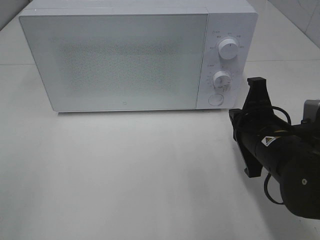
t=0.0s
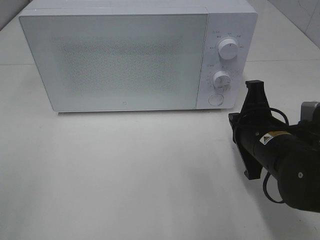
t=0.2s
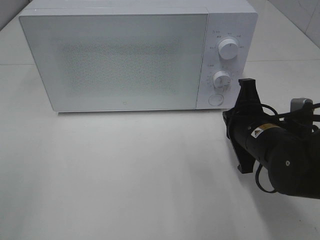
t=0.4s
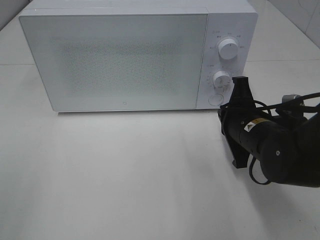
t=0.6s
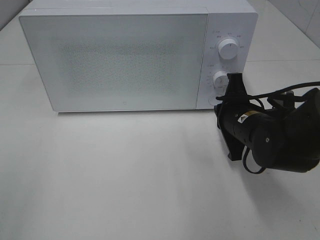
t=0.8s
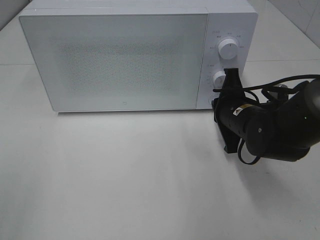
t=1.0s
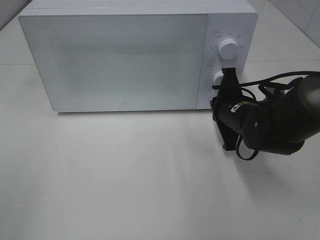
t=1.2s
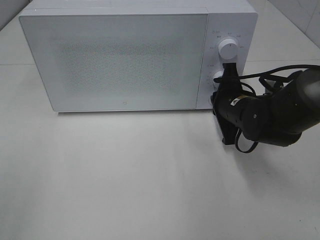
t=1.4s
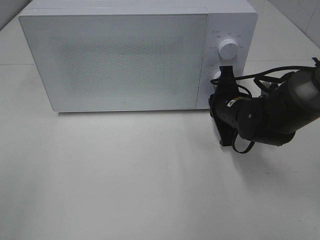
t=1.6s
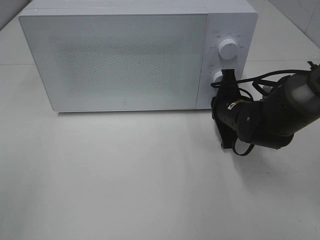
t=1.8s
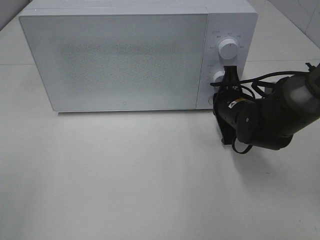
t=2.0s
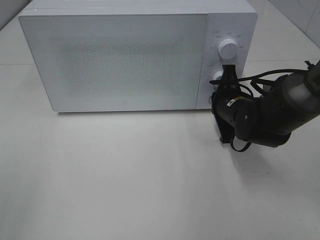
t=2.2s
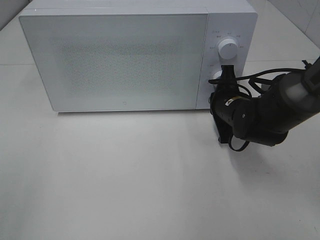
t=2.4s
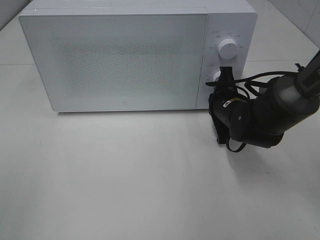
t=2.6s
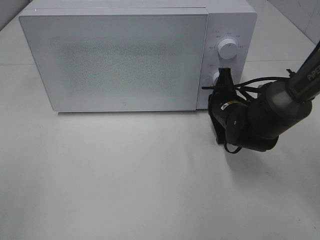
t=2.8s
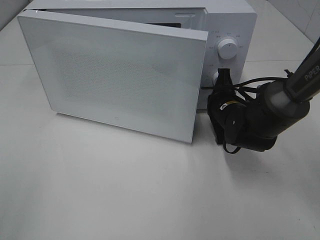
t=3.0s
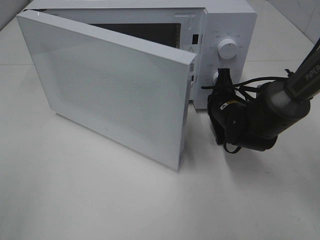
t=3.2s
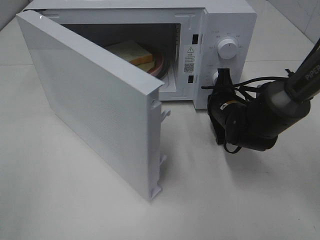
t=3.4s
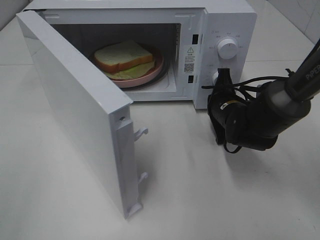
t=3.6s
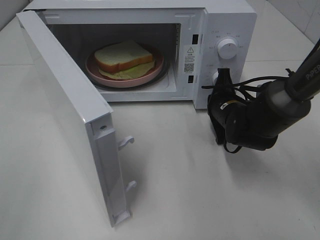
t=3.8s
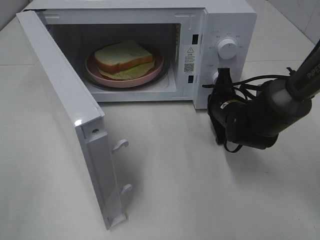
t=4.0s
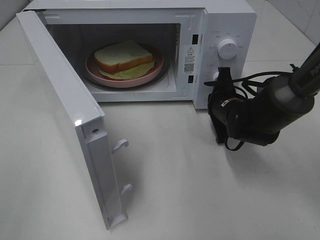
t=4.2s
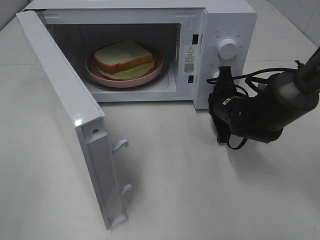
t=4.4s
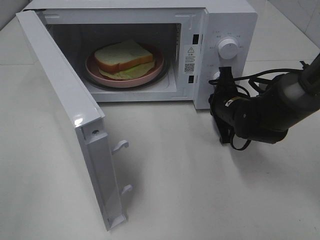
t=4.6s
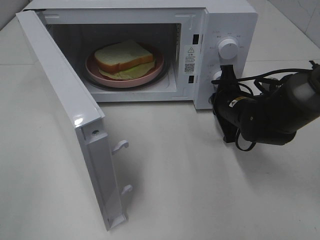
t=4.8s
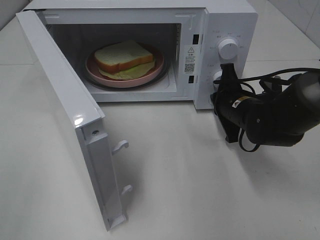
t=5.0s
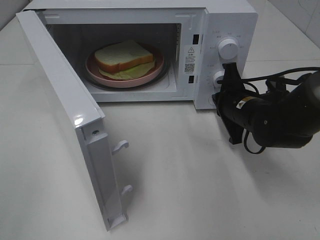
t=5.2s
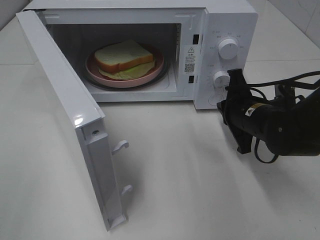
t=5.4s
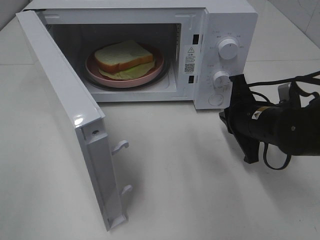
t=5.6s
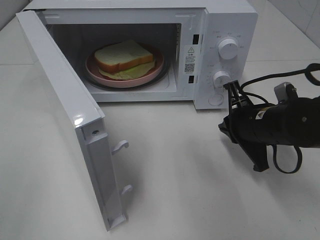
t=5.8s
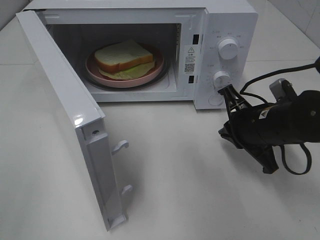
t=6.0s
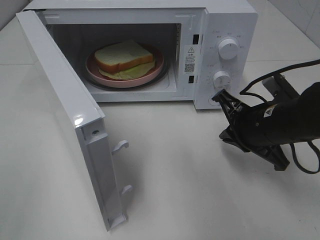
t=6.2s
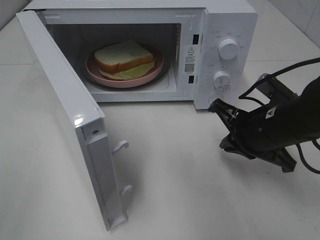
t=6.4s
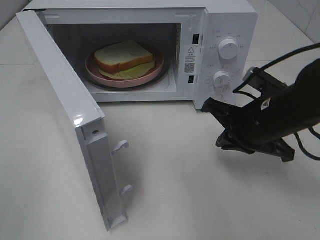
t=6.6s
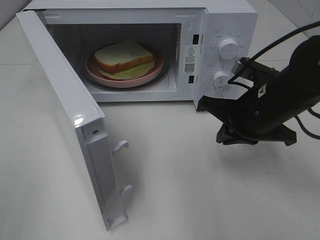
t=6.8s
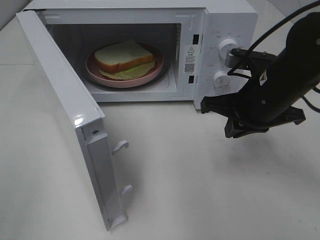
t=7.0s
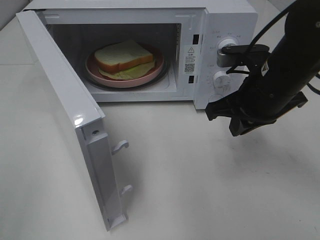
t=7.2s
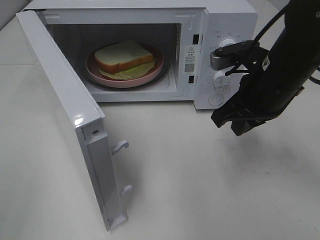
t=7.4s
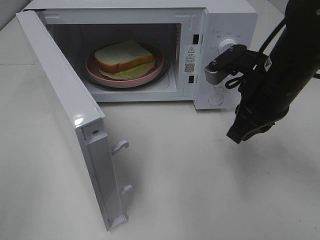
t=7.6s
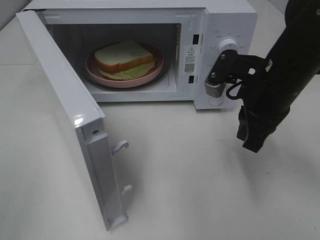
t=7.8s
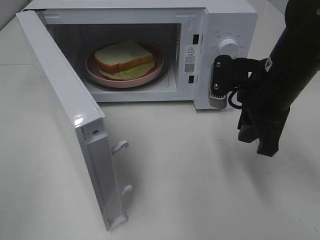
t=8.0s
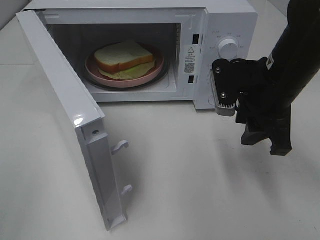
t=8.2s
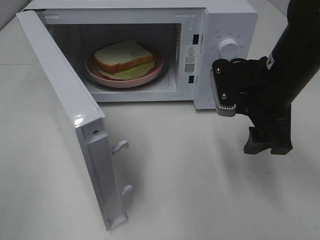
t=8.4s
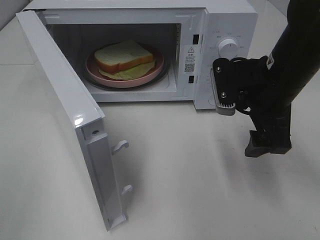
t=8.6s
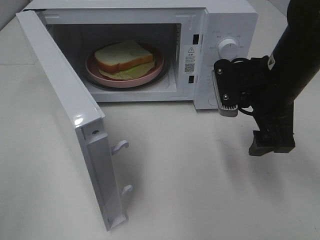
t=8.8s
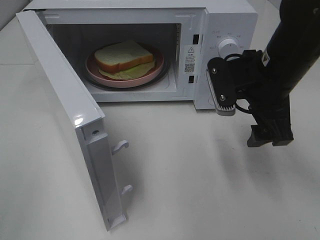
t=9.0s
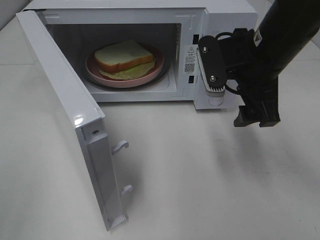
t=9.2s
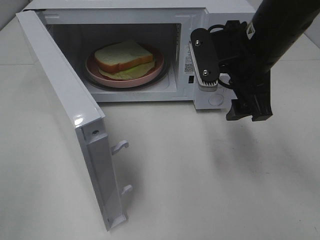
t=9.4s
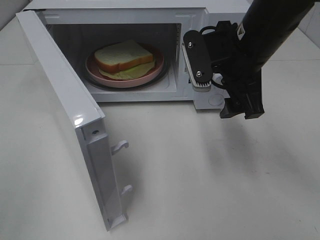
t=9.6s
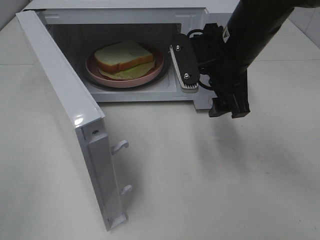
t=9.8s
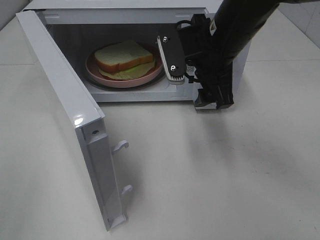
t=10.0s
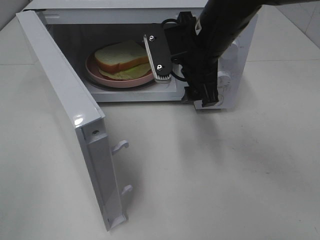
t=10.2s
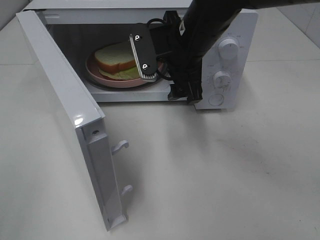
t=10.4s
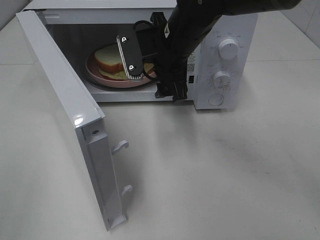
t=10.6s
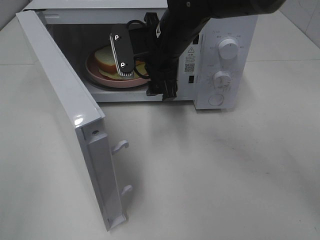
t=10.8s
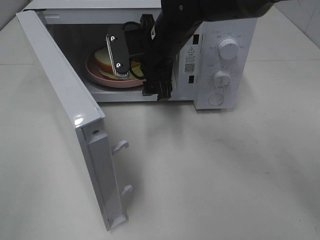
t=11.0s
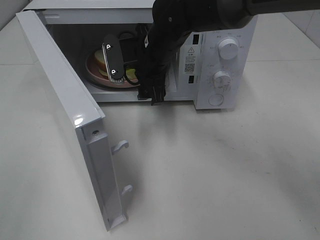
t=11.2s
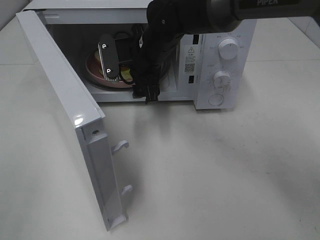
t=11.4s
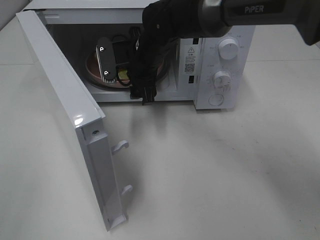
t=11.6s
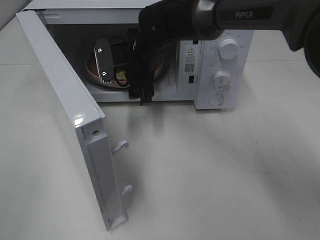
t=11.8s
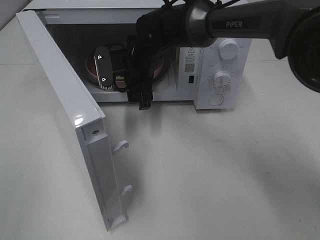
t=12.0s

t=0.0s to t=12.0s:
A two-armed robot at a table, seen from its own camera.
Task of the whole recording: Heat Sandwich.
Step, t=0.0s to t=5.4s: Right hand: press the switch.
t=0.0s to t=1.6s: The right gripper travels forward by roughly 10 cm.
t=1.6s to t=3.0s: There are only small adjustments of the grippers.
t=4.4s to t=6.0s: The right gripper shifts roughly 10 cm backward.
t=6.0s to t=7.6s: The right gripper is displaced upward by roughly 10 cm.
t=7.6s to t=9.0s: The right gripper opens up.
t=9.0s to t=10.4s: The right gripper heads to the left and forward, covering about 15 cm.
t=10.4s to t=12.0s: The right gripper moves downward, forward and to the left, approximately 15 cm.

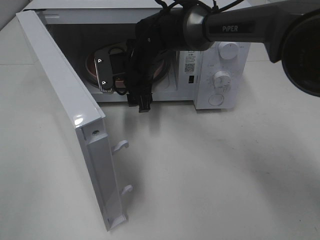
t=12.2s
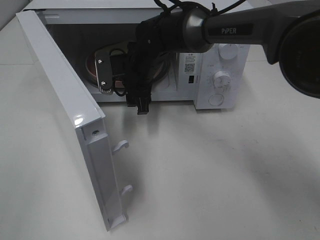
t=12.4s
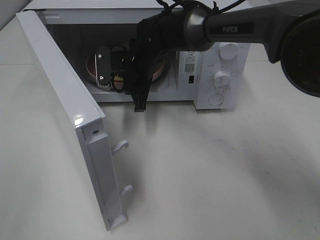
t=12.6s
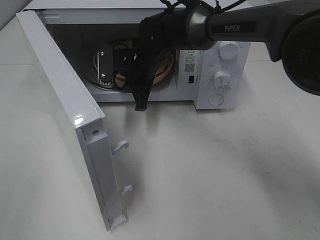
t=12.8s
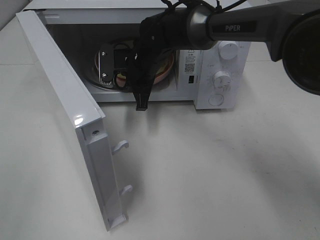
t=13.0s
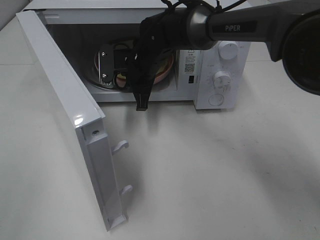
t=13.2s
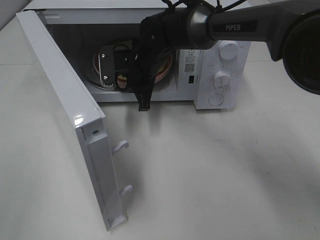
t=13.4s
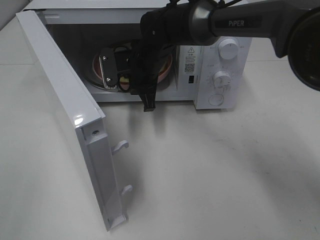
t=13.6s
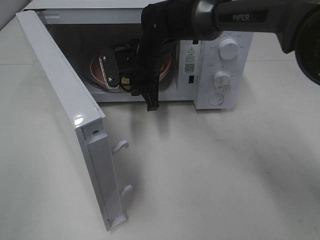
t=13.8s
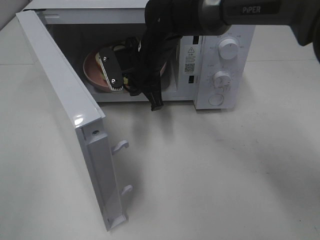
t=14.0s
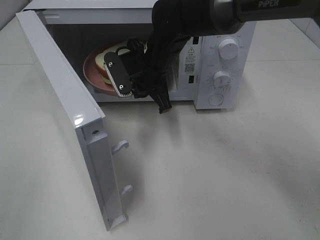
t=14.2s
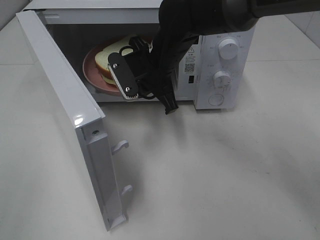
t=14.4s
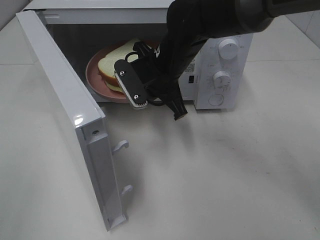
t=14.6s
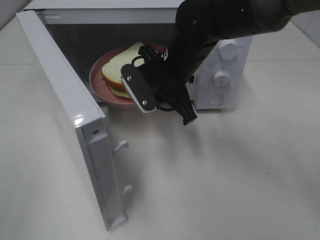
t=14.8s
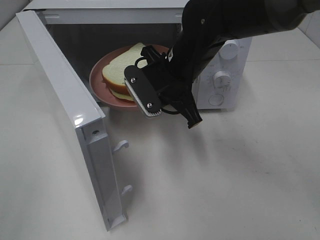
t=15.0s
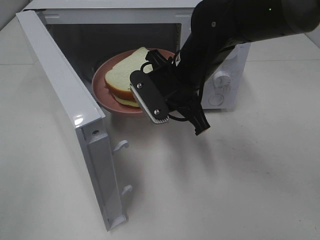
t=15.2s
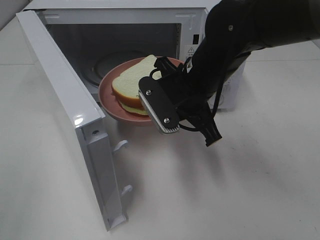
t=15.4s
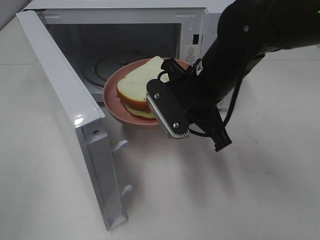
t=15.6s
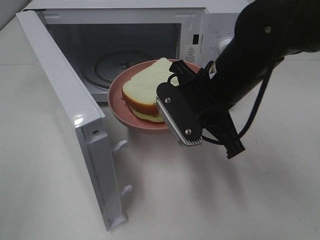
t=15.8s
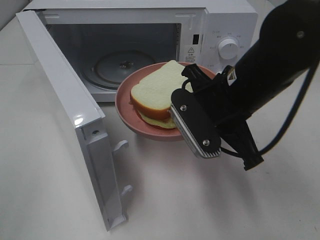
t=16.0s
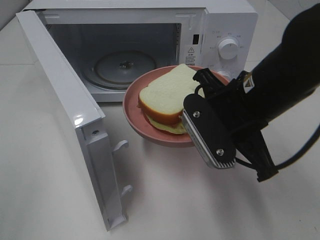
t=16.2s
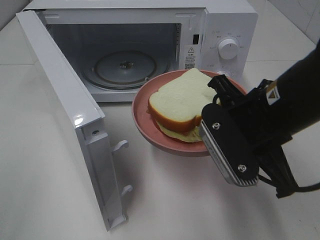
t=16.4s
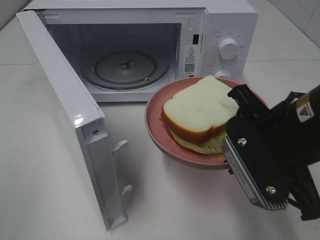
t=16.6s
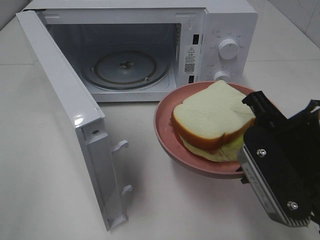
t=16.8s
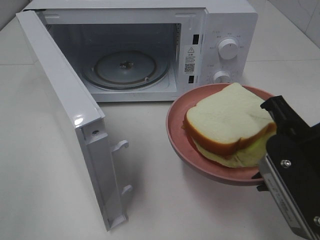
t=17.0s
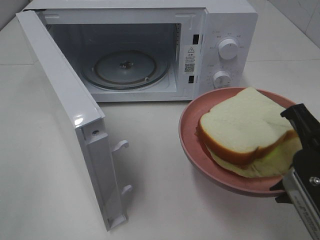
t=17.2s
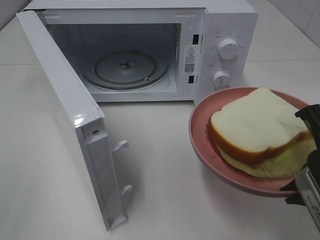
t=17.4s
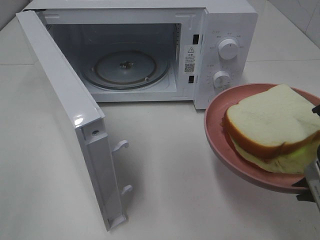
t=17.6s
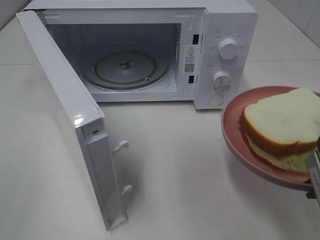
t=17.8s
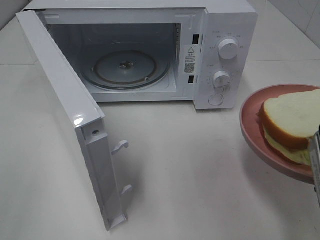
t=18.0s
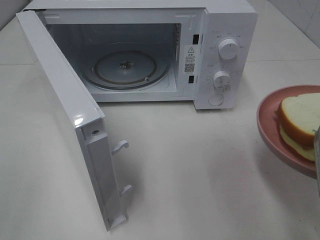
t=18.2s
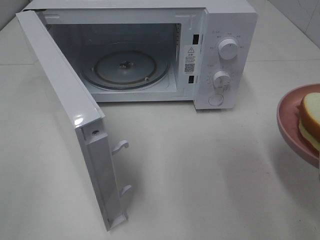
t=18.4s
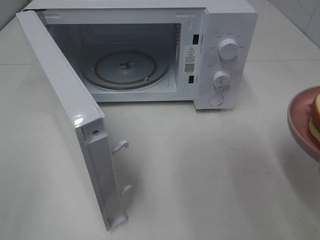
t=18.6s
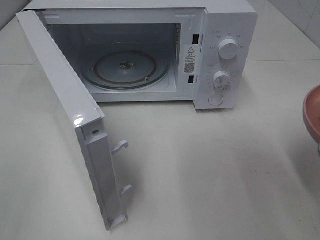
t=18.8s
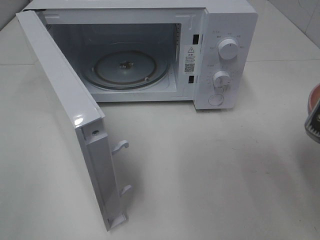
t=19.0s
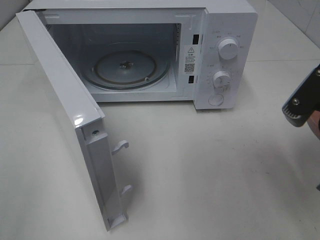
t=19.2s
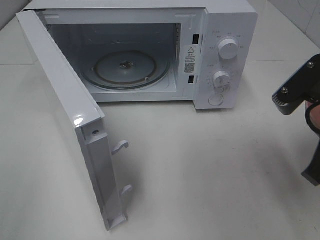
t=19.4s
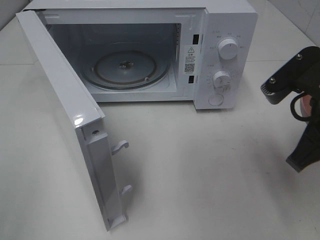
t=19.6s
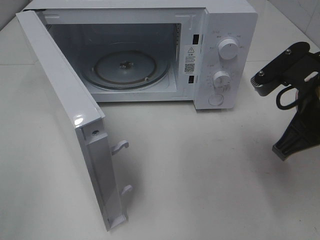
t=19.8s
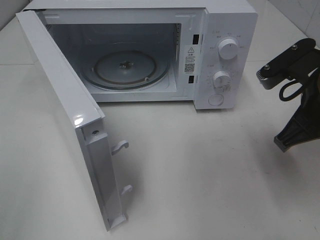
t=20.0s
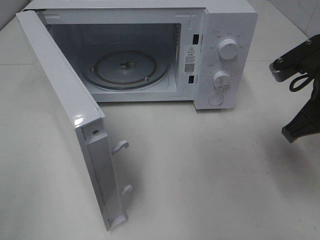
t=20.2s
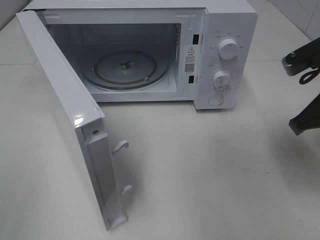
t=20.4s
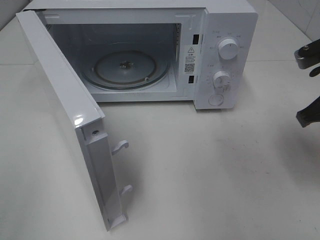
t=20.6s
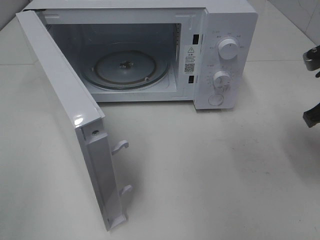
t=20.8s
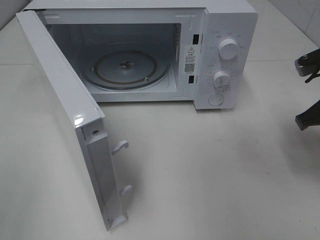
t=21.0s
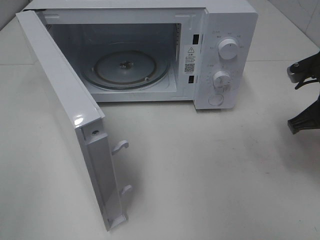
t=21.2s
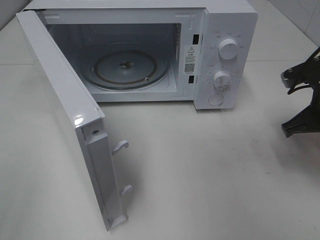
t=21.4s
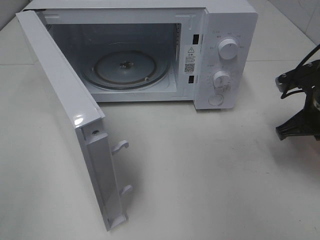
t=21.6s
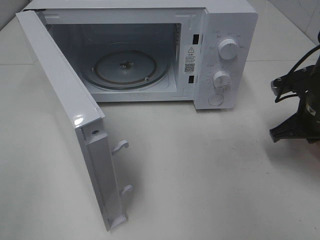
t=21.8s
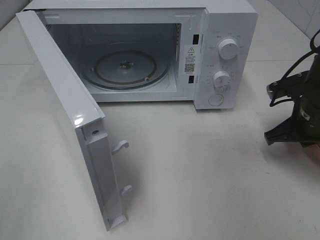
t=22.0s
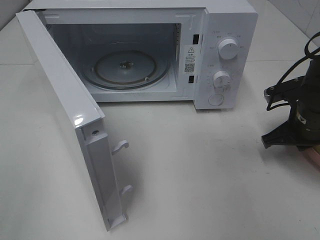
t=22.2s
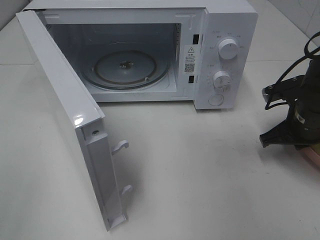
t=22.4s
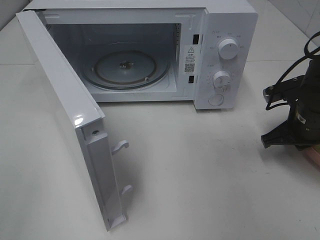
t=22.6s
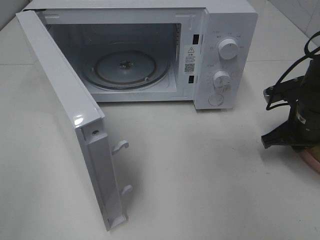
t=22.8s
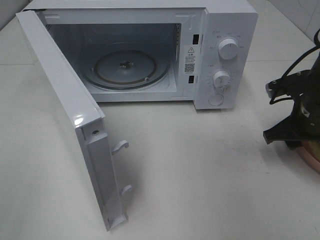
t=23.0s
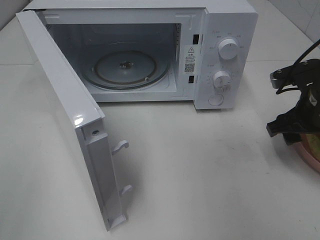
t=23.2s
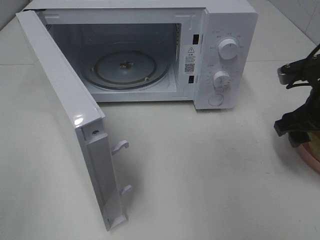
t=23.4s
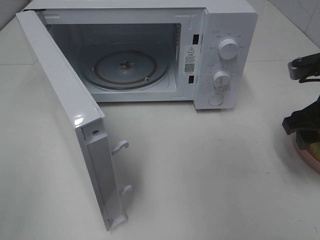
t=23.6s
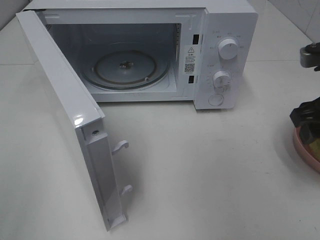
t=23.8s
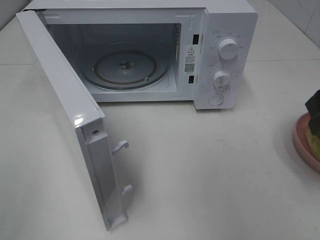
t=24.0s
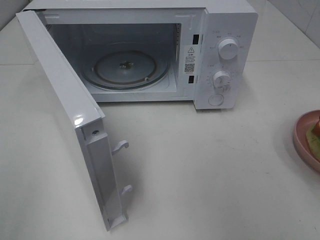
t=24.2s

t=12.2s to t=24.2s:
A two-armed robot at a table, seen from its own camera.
Task of the whole recording: Heat Sandwich.
Step, t=13.6s to t=23.2s: Right hand: place the plate on the table.
t=12.2s to t=13.8s: The right gripper closes up.
t=13.8s to t=15.2s: The right gripper is displaced backward and to the right by some 10 cm.
t=15.2s to t=16.6s: The right gripper goes some 15 cm backward and to the right.
t=16.6s to t=18.2s: The right gripper shifts roughly 10 cm to the right and backward.
t=18.2s to t=19.8s: The right gripper travels forward by approximately 10 cm.
t=19.8s to t=21.2s: The right gripper heads to the right and forward, covering about 10 cm.
t=21.2s to t=22.6s: The right gripper is displaced downward by approximately 5 cm.
t=22.6s to t=24.2s: The right gripper heads upward and backward, covering roughly 20 cm, and opens.
